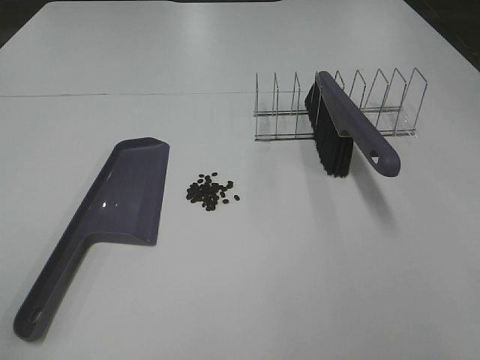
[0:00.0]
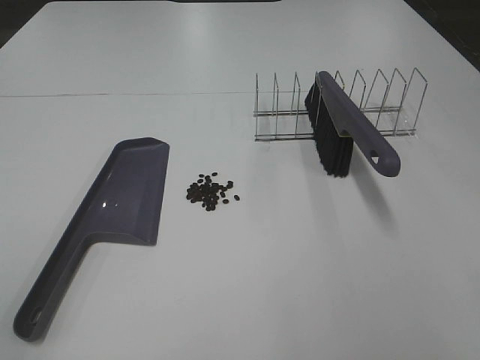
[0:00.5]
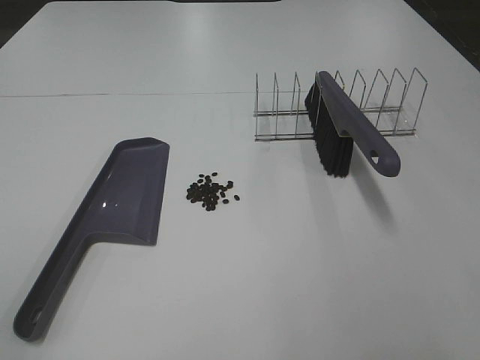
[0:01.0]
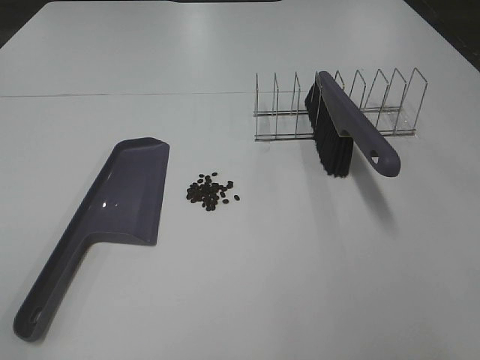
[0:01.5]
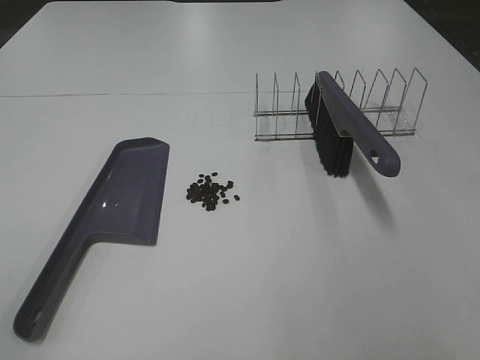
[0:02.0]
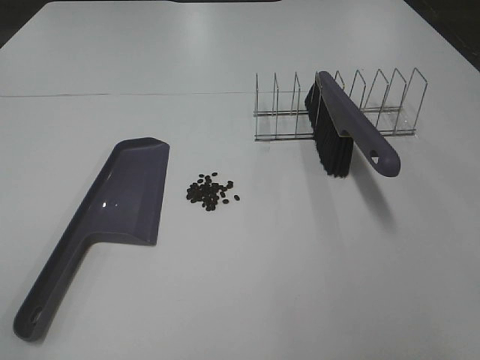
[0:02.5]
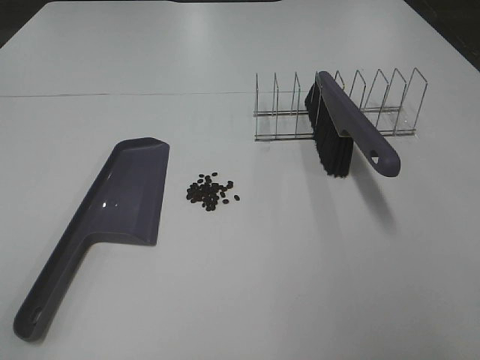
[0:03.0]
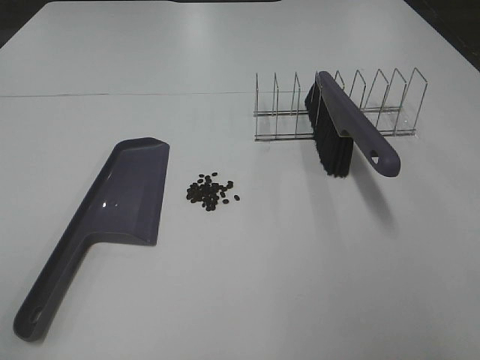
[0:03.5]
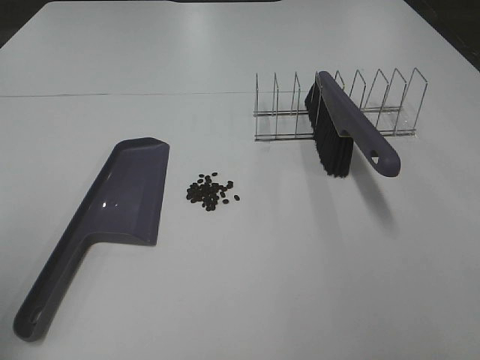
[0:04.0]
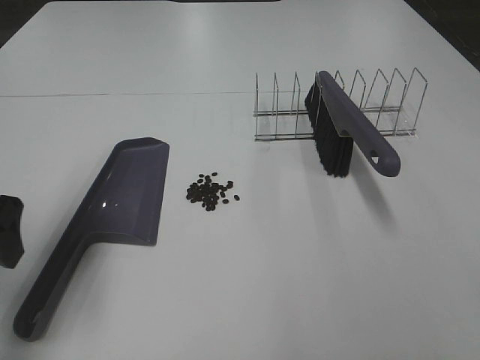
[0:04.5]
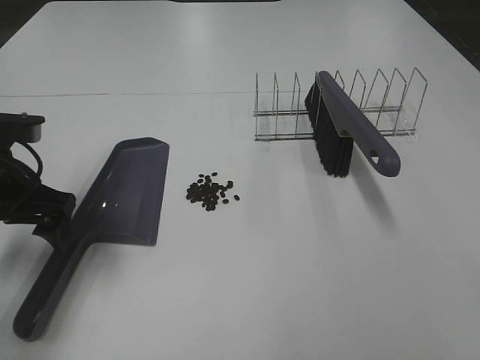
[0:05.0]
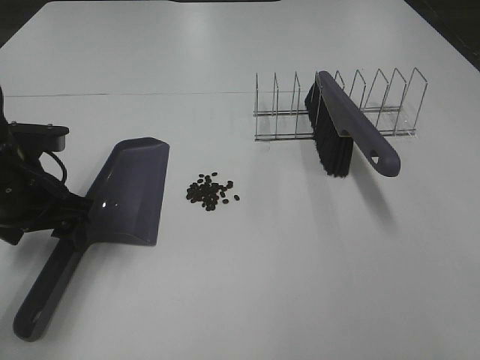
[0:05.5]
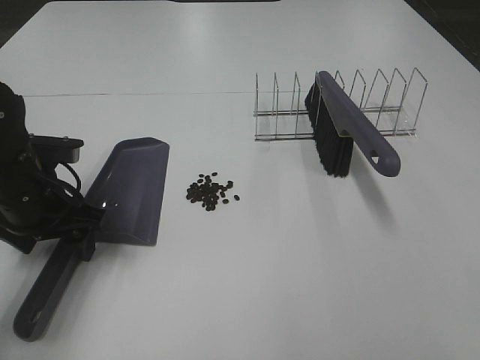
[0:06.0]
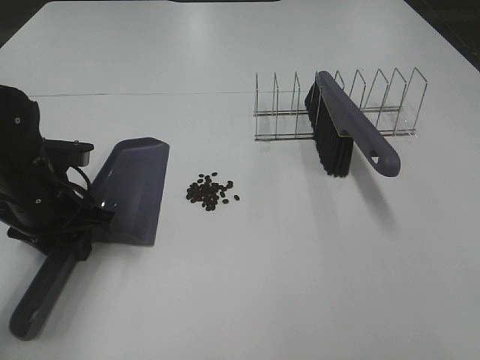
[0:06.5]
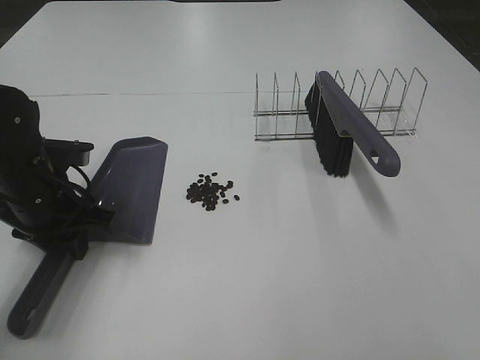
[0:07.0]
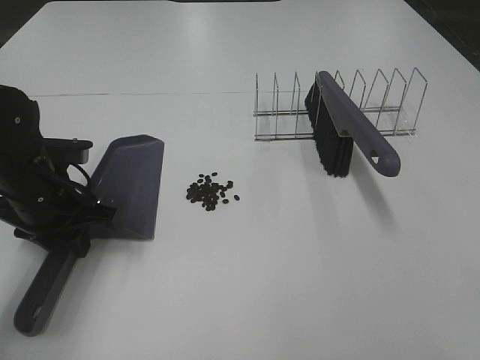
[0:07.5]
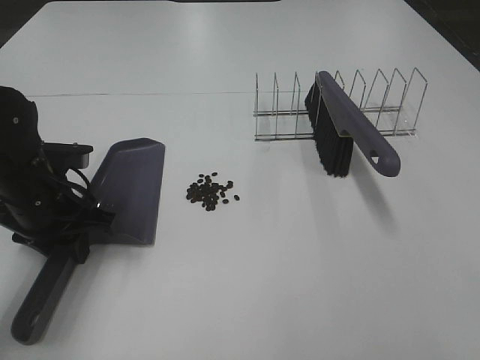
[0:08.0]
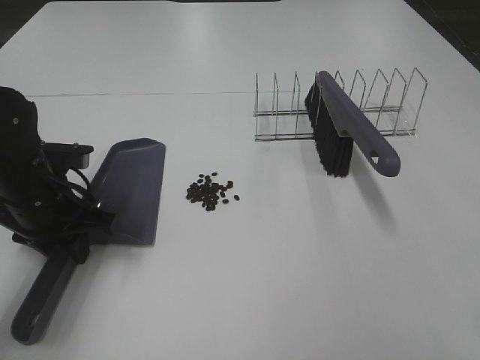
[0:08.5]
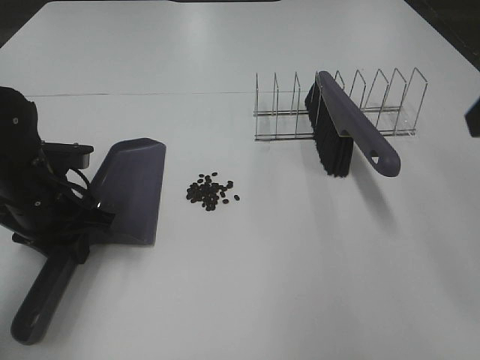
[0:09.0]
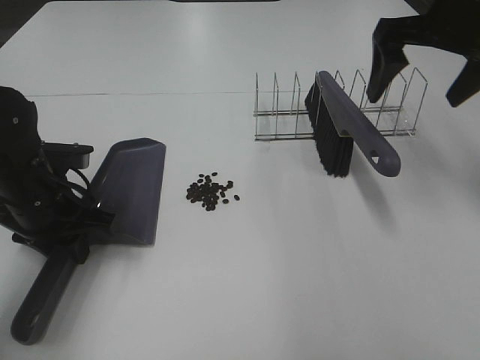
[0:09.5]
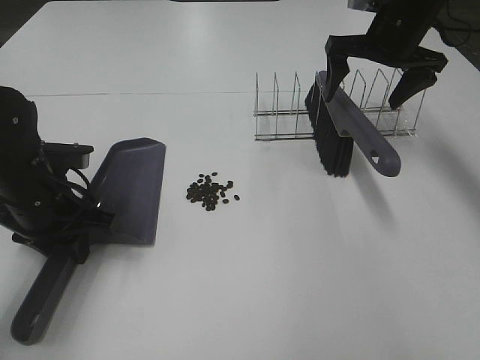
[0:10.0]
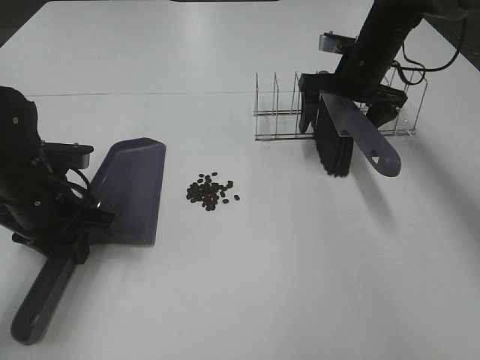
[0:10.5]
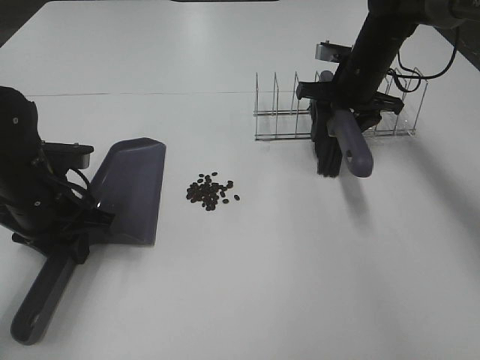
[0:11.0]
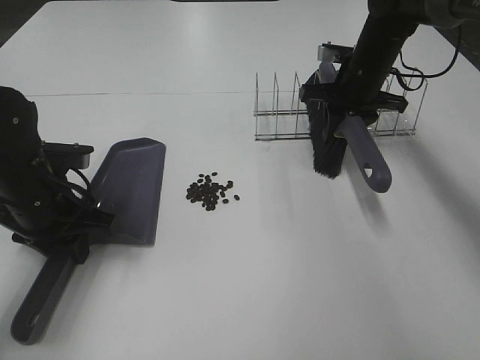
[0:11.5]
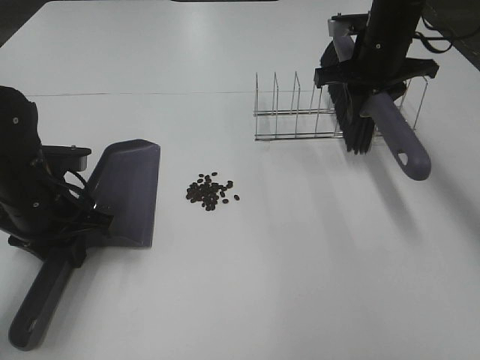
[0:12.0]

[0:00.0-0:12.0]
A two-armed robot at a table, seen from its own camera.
Task of the whole recording: Sweep Coffee Bean.
Step, 0:00.0 to 0:06.5: Left hand: grab the dustpan.
Step, 0:08.5 to 0:11.0: Right hand:grab the broom.
0:00.0 to 0:02.0: The two grippers keep their place.
0:04.0 to 0:06.0: The left gripper is displaced forward, downward and to the right by approximately 25 cm, and closes its fingers.
0:06.0 to 0:08.0: The left gripper closes up.
0:08.0 to 0:10.0: The right gripper travels forward by roughly 50 cm, and opens its fingers.
0:10.0 to 0:12.0: The right gripper closes its fingers.

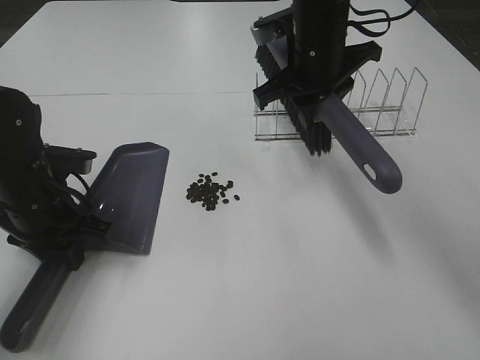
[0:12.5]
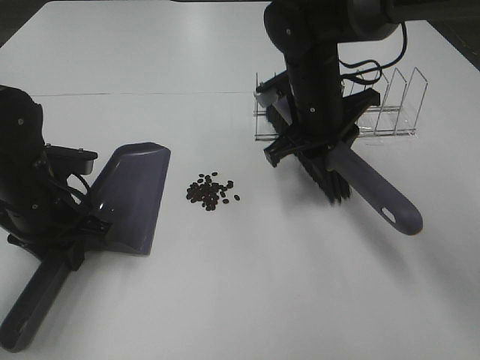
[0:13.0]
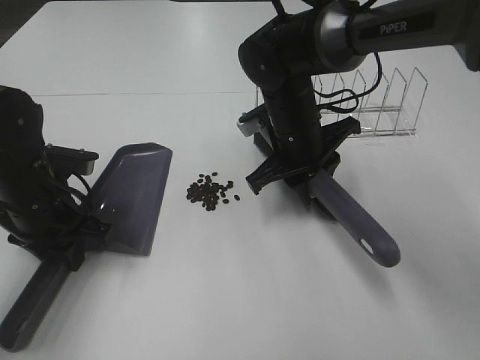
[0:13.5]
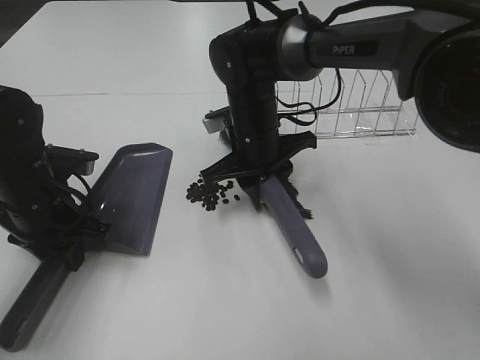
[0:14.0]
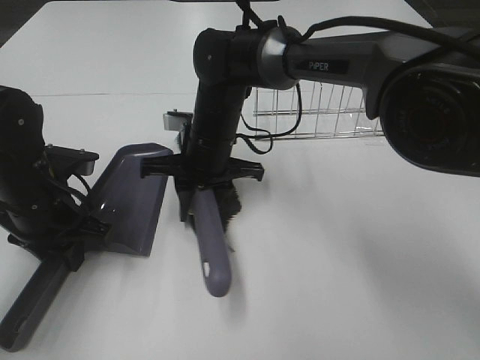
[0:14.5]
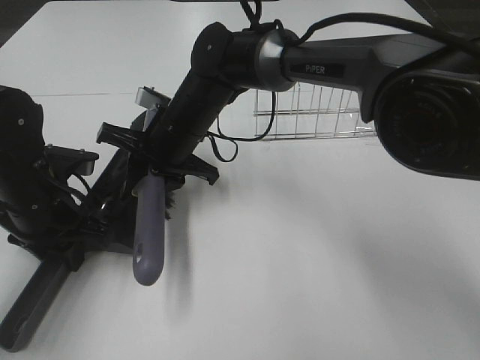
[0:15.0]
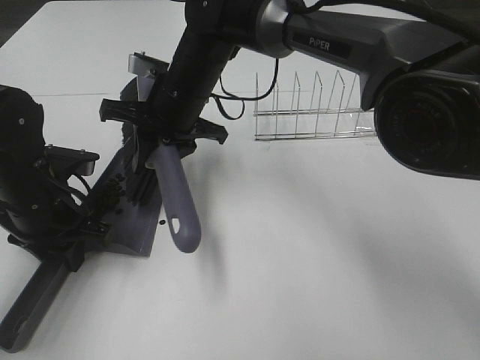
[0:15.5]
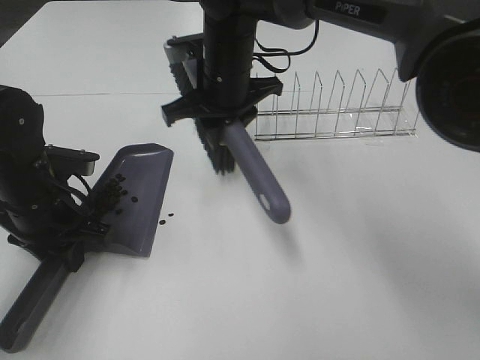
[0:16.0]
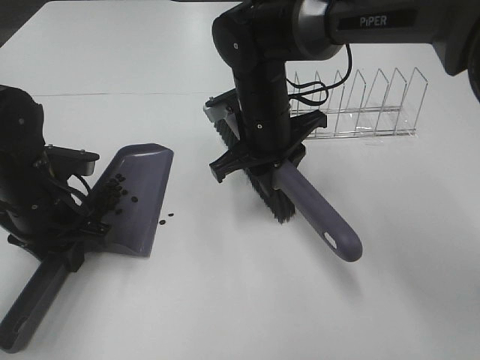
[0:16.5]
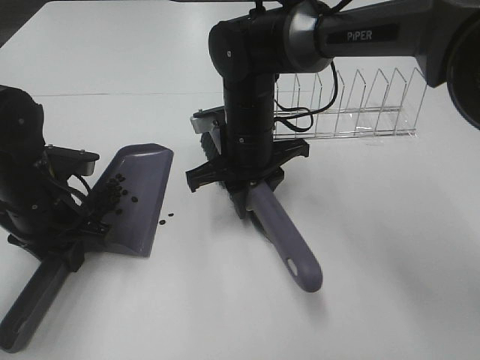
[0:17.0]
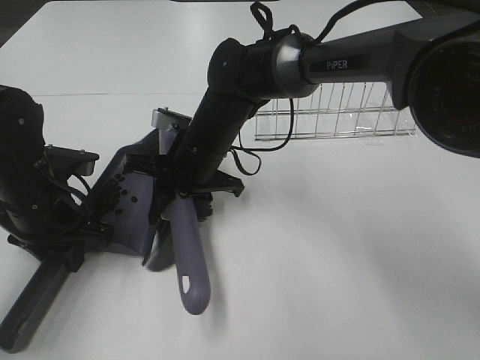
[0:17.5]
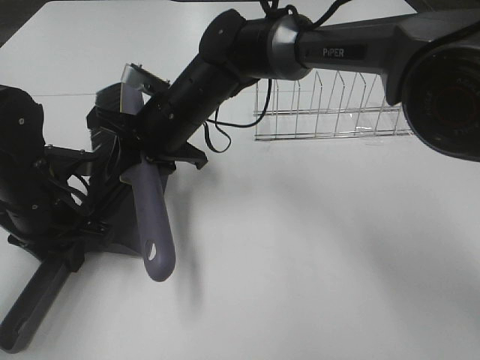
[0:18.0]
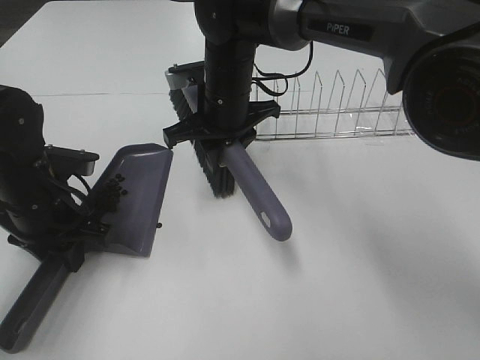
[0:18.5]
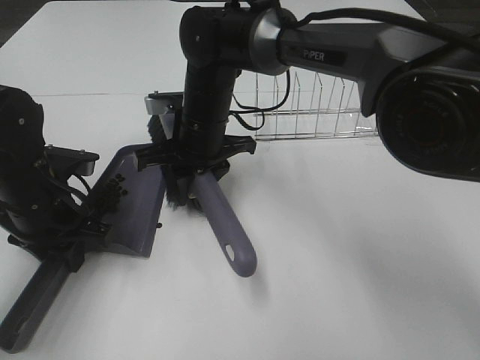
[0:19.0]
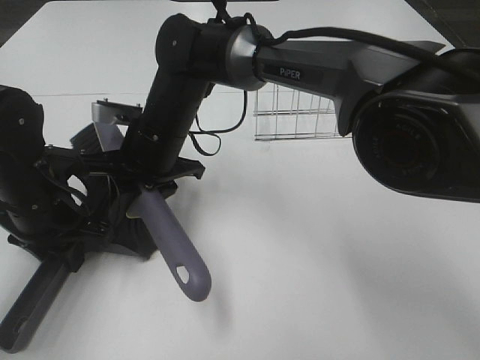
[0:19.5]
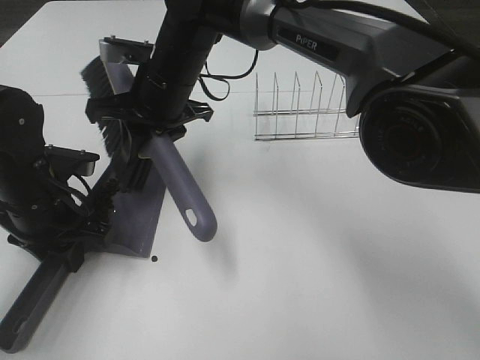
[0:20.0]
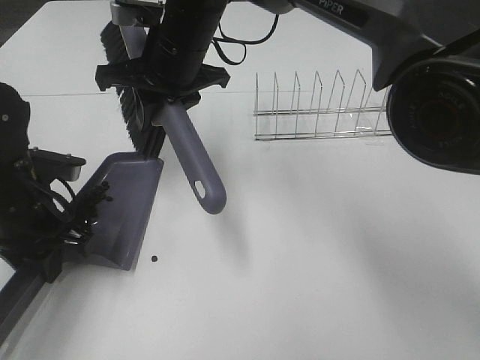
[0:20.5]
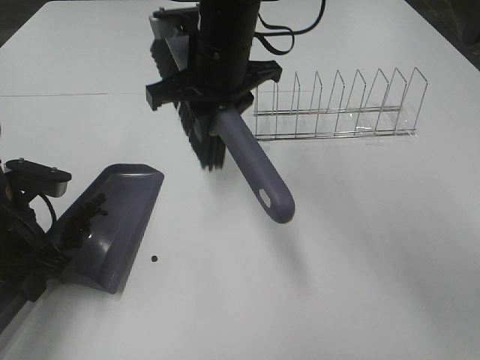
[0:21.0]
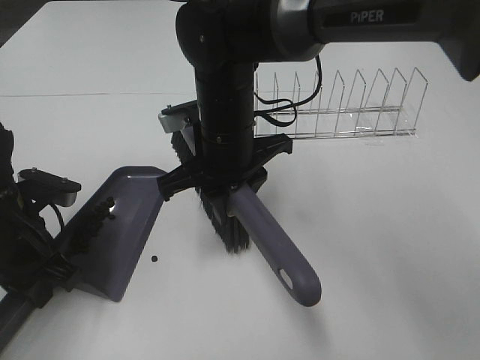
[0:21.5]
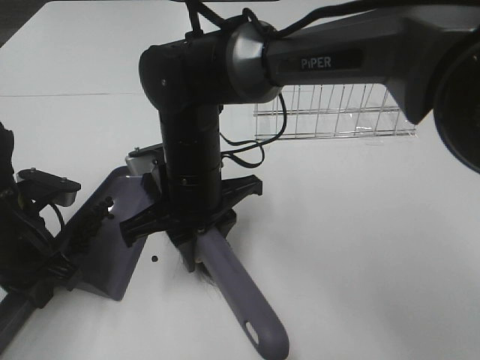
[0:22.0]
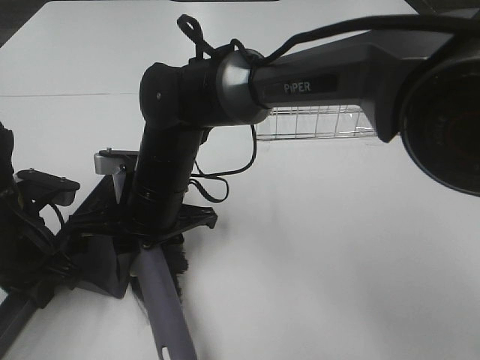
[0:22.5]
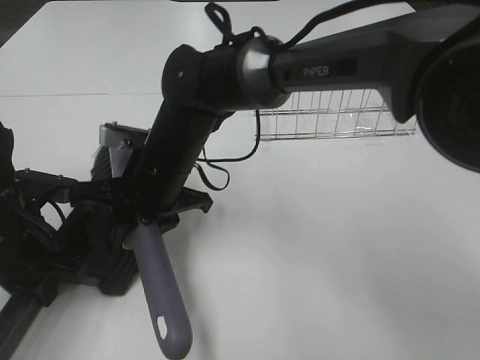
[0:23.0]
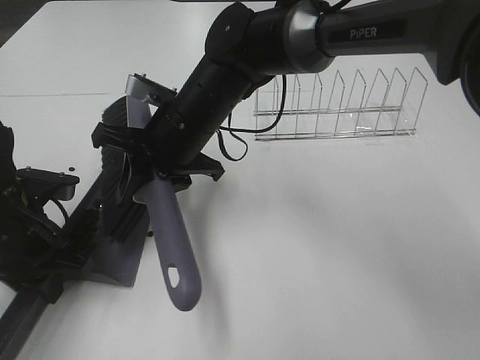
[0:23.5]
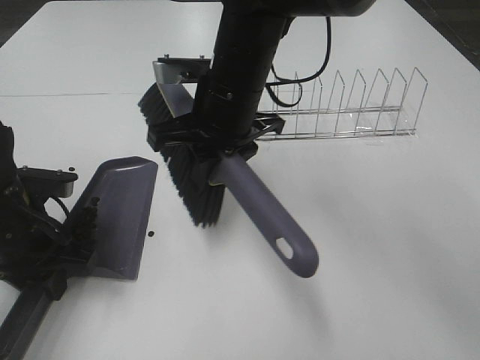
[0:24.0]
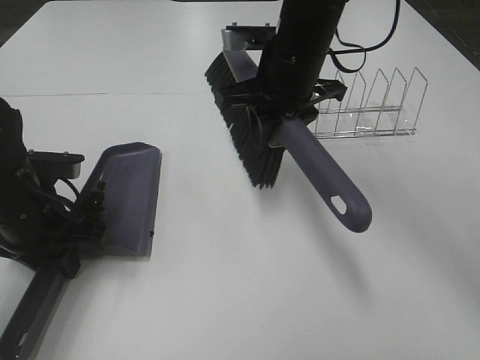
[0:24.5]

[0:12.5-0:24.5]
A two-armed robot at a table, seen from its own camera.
Task of the whole recording: Sweep Coffee Bean.
Step, 0:12.5 to 0:23.5: Right hand:sweep the coffee beans into the dustpan.
0:12.5 to 0:14.5: The right gripper shifts about 15 cm to the left and downward.
0:14.5 to 0:16.5: The right gripper heads to the right, covering about 5 cm.
0:18.5 to 0:20.5: The right gripper is displaced upward by roughly 5 cm.
0:20.5 to 0:22.5: The right gripper goes about 15 cm downward and backward.
0:22.5 to 0:24.5: The right gripper shifts about 20 cm to the right, upward and forward.

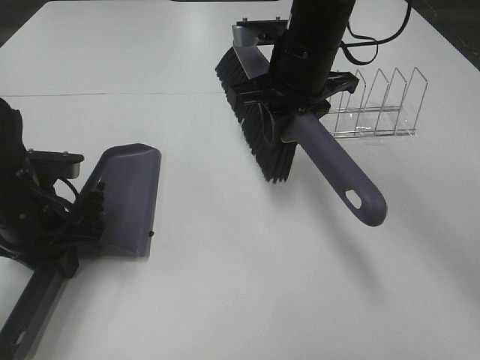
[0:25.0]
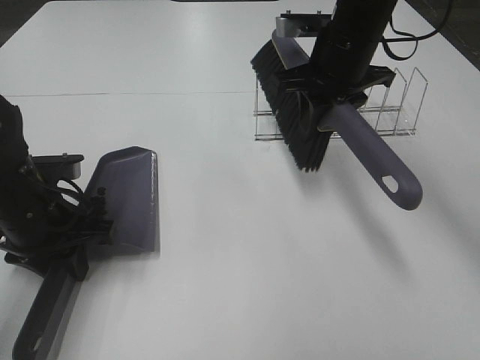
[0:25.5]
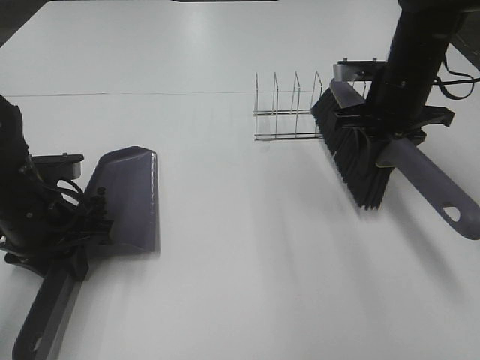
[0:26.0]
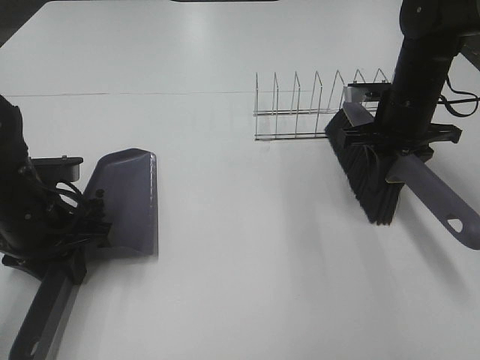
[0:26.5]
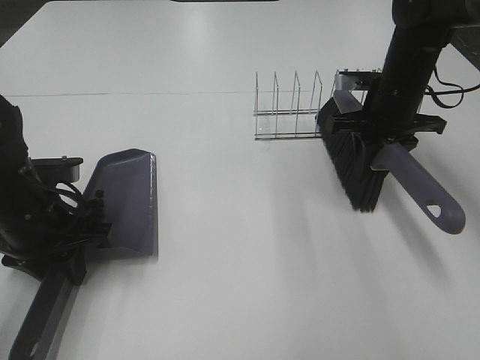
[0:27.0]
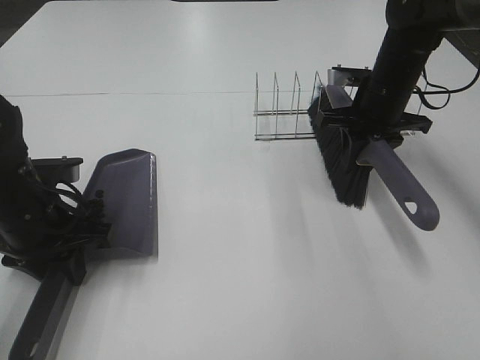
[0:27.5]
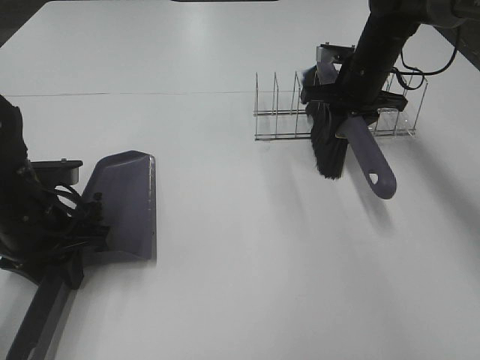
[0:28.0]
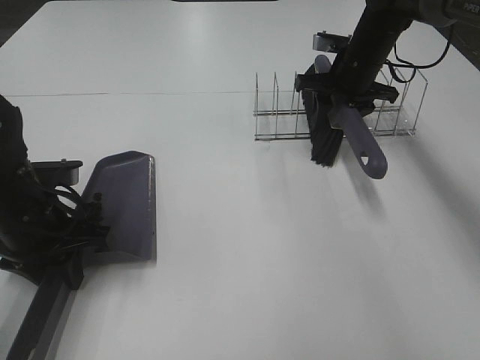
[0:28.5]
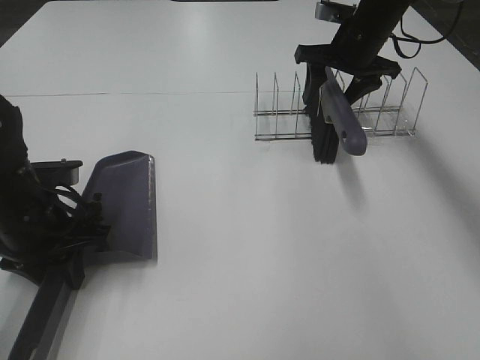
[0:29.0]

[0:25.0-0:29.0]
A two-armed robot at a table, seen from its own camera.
Task of the whole recording: Sweep Coffee Bean.
0:25.0 to 0:27.0: The right gripper goes some 15 cm to the right and downward.
0:27.0 to 0:29.0: The right gripper goes about 10 cm forward, and opens its fingers.
